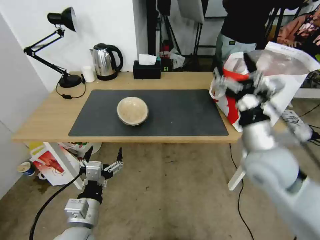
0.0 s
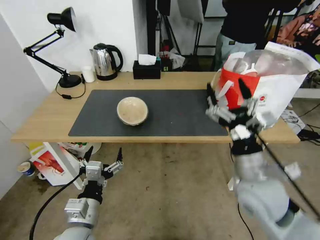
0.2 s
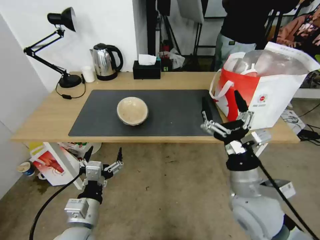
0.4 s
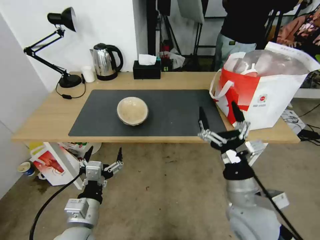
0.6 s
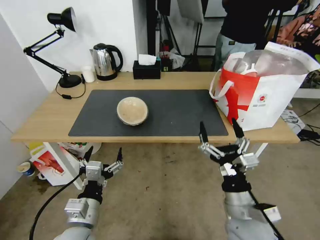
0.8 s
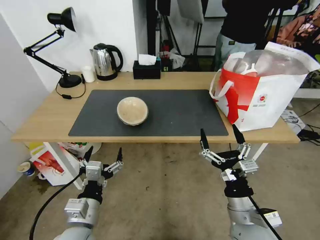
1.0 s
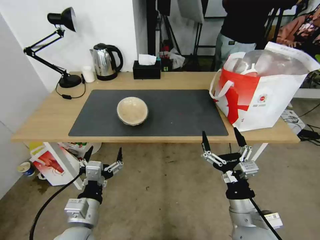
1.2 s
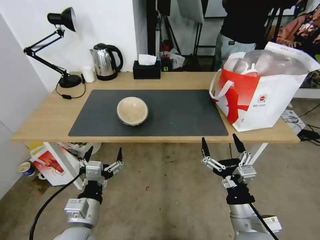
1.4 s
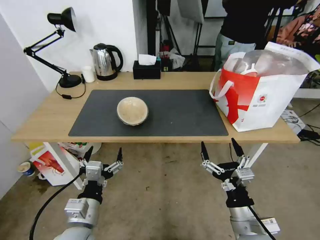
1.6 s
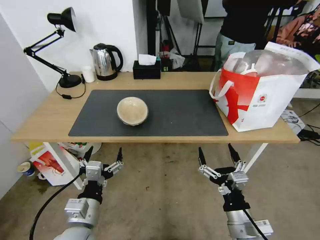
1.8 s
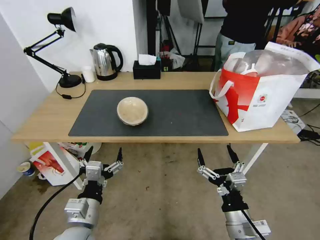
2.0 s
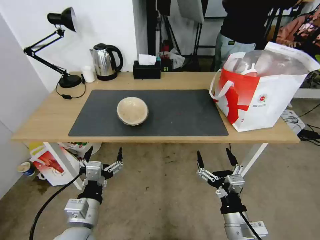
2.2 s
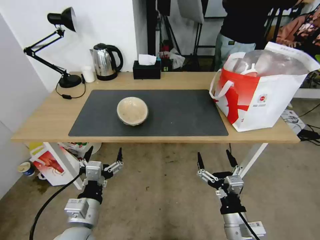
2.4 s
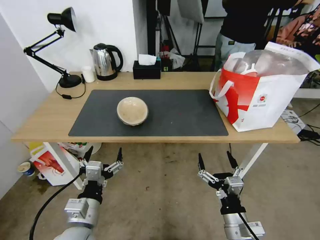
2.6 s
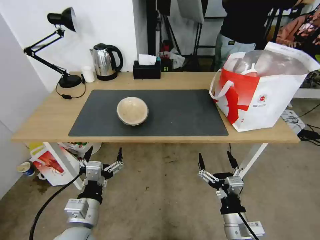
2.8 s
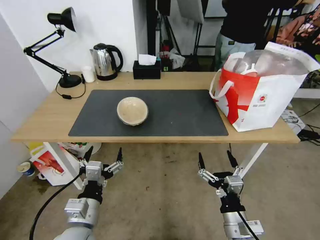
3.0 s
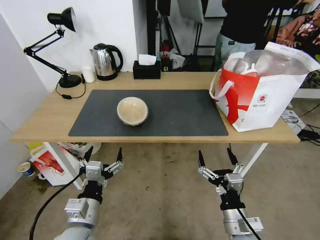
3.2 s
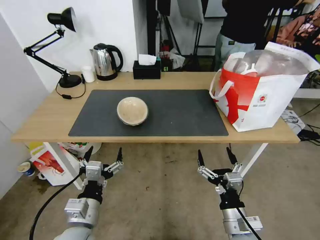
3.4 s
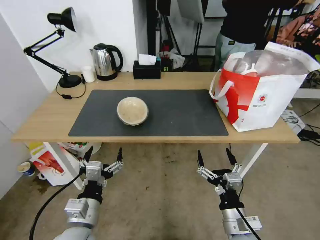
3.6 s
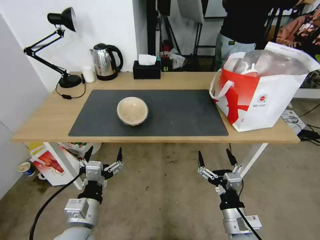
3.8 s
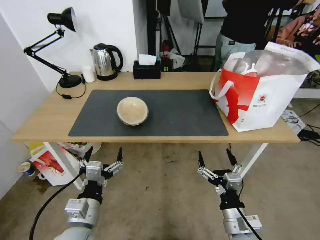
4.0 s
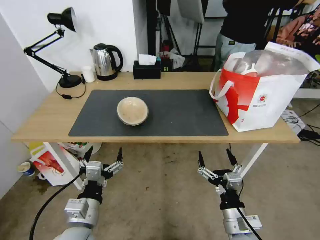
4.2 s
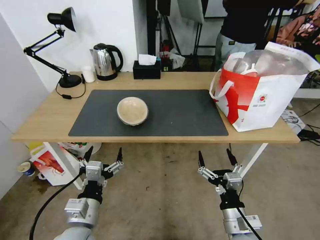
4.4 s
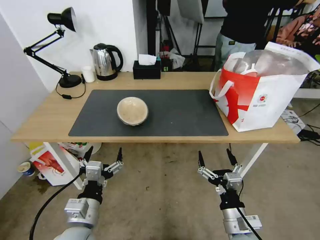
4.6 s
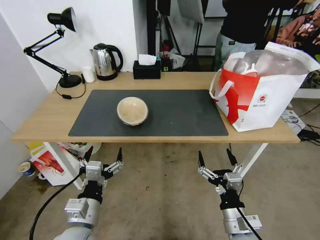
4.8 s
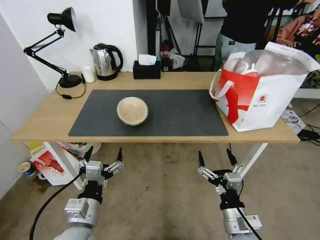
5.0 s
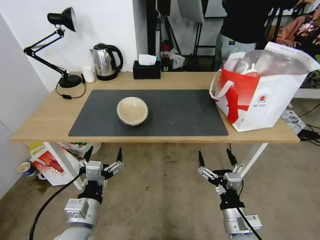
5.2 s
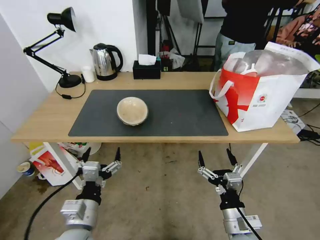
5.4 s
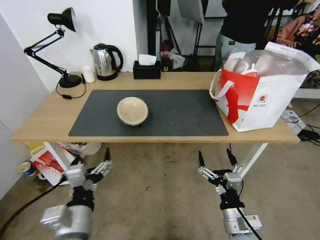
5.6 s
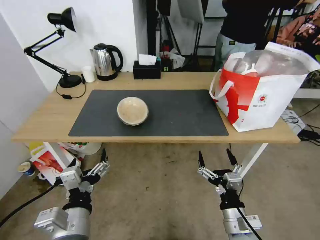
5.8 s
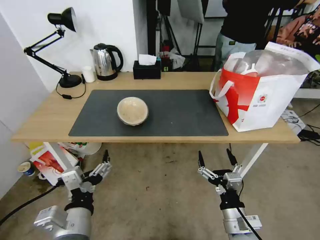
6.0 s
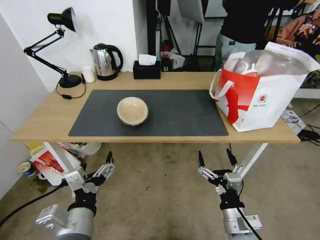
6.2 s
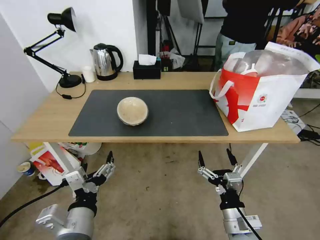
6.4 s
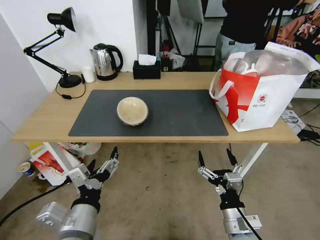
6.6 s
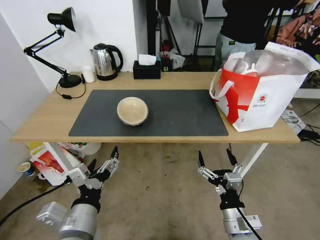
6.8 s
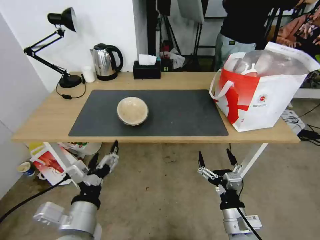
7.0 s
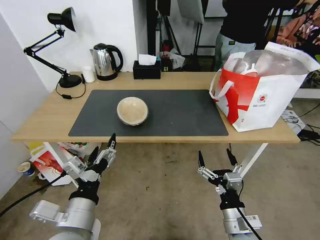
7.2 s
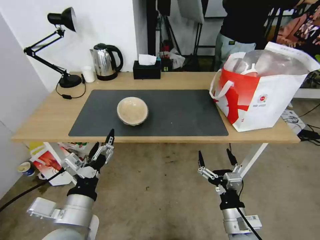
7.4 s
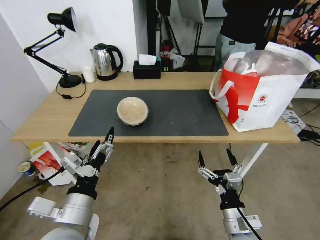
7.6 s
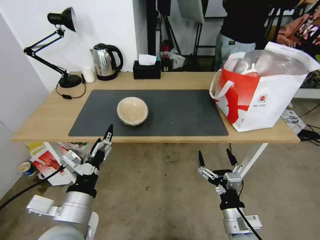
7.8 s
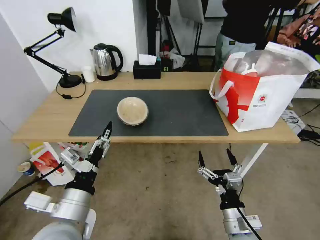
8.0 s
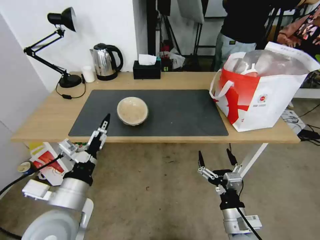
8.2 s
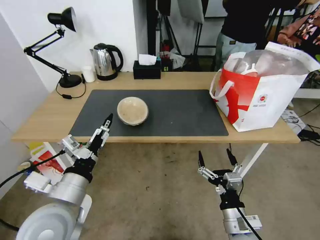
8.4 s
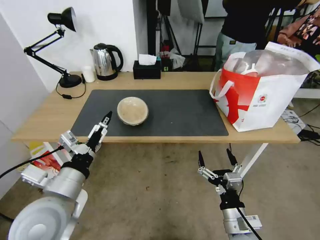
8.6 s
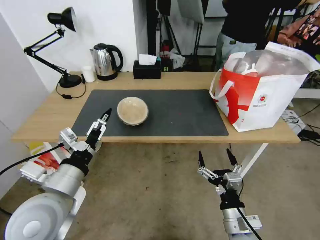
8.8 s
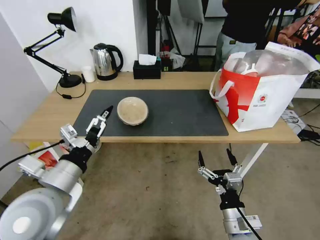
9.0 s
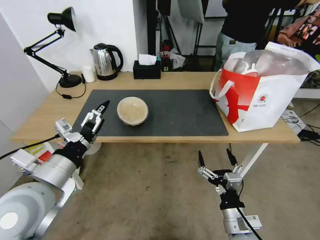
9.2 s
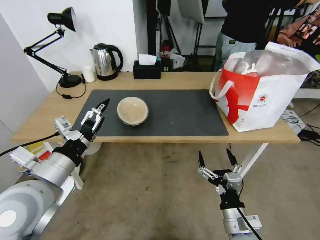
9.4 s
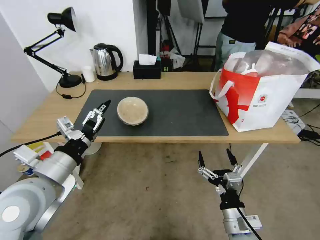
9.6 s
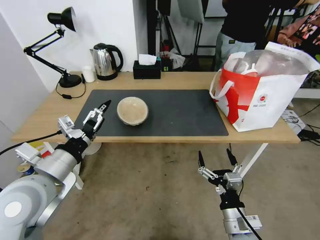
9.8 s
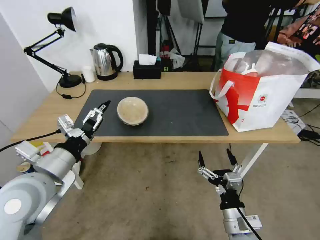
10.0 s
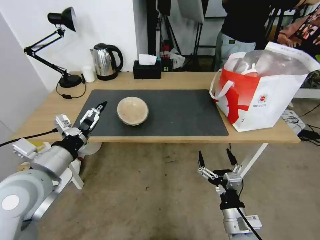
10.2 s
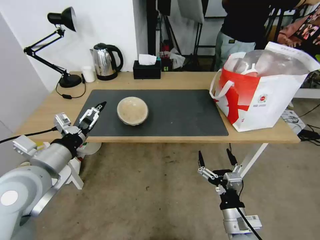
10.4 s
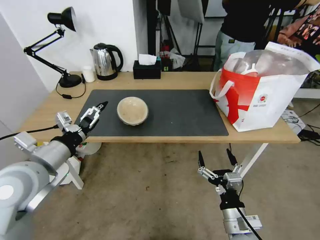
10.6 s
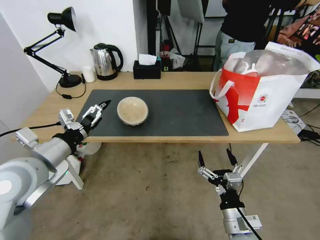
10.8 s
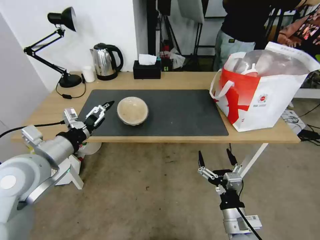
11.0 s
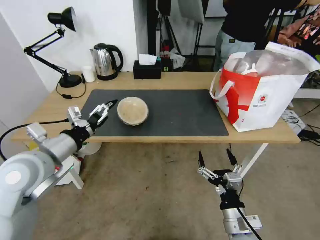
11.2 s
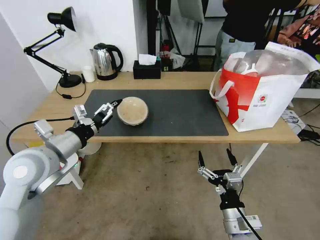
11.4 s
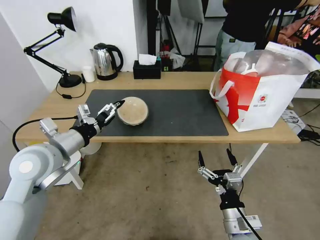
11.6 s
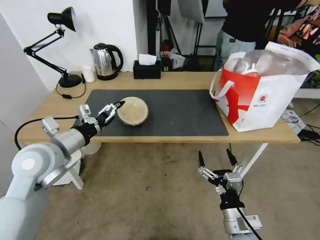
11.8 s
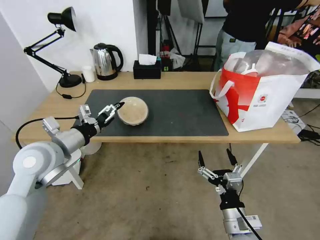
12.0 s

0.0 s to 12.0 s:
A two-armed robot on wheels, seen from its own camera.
Task of the whole recording: Pick up the trash from the table and place it into the takeout bag.
0.0 to 1.6 s: The right gripper heads downward and backward, covering roughly 20 cm.
1.6 to 3.0 s: The grippers stay close to where they were, moving slightly.
3.0 to 4.4 s: Both grippers stay put.
4.4 to 6.0 s: The left gripper goes some 5 cm upward.
7.6 to 9.0 s: The left gripper travels forward and upward by about 5 cm.
9.0 to 10.4 s: The left gripper moves roughly 5 cm.
10.4 to 12.0 s: The left gripper shifts about 5 cm forward.

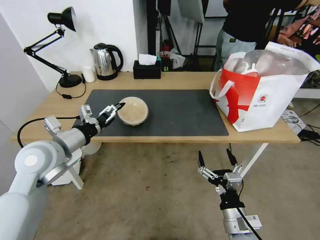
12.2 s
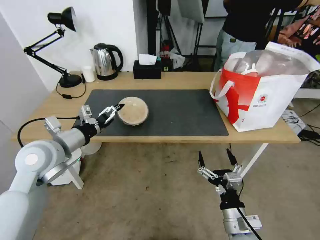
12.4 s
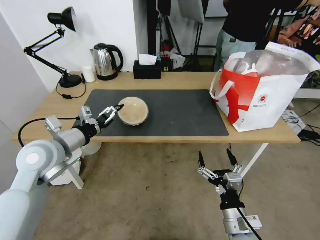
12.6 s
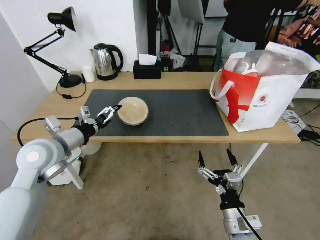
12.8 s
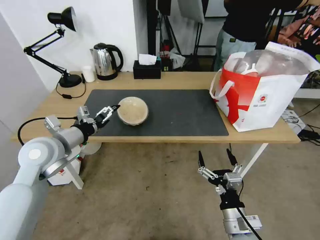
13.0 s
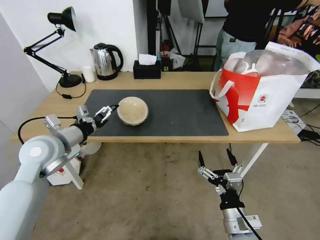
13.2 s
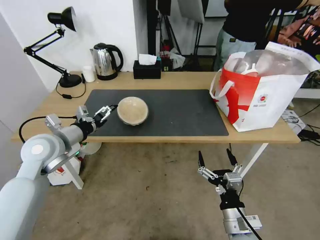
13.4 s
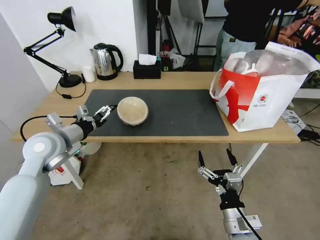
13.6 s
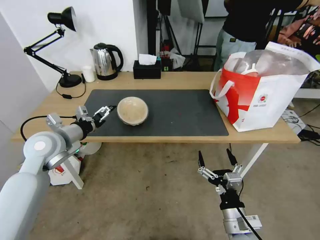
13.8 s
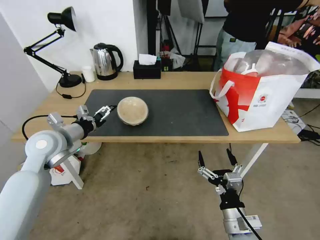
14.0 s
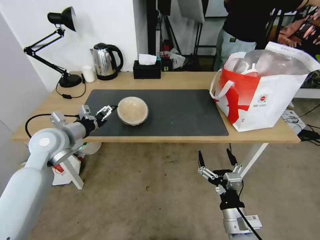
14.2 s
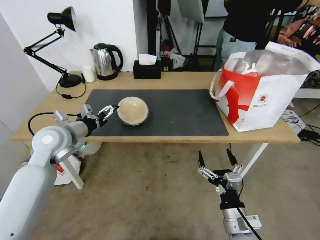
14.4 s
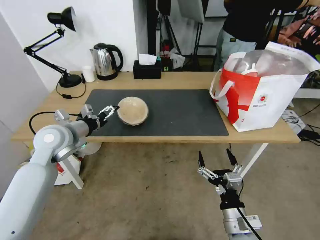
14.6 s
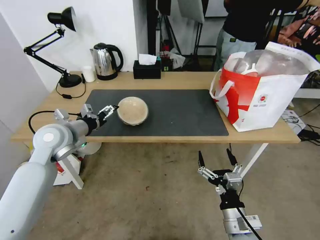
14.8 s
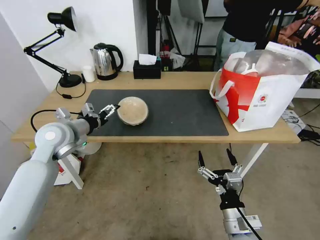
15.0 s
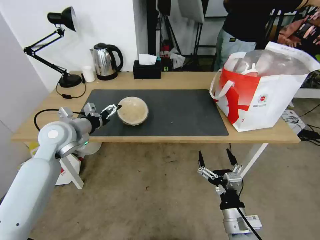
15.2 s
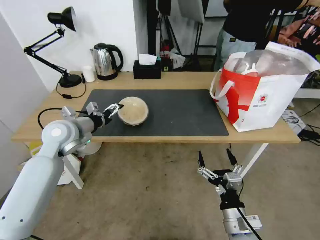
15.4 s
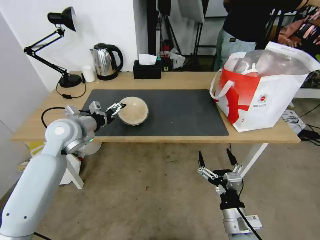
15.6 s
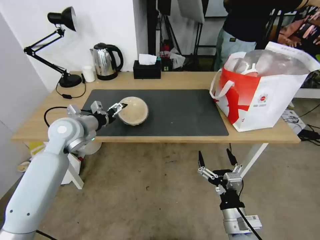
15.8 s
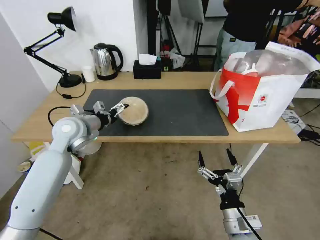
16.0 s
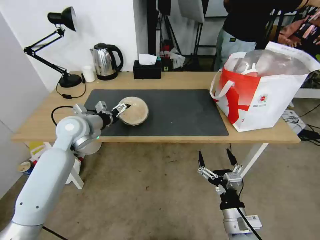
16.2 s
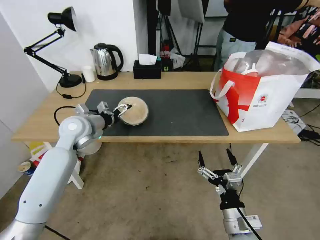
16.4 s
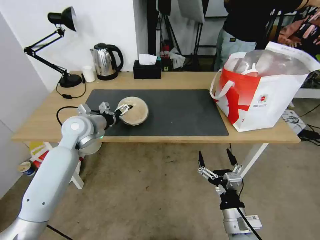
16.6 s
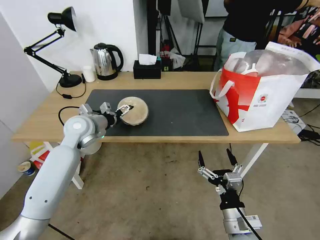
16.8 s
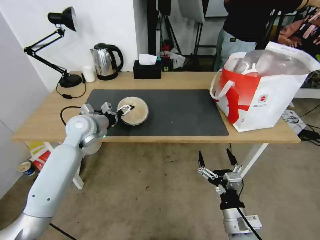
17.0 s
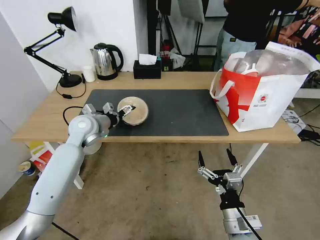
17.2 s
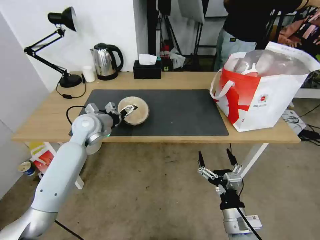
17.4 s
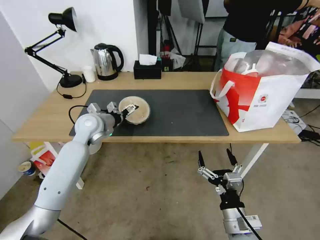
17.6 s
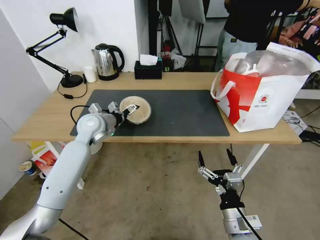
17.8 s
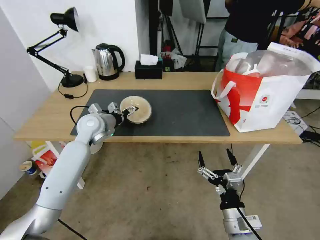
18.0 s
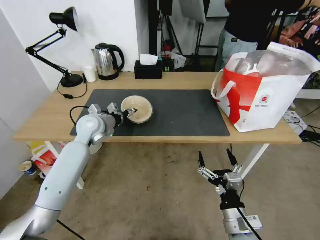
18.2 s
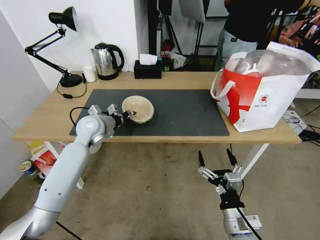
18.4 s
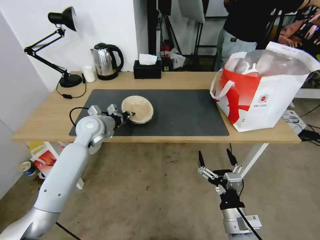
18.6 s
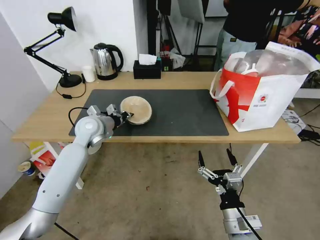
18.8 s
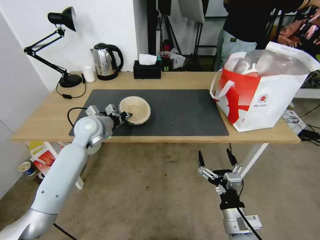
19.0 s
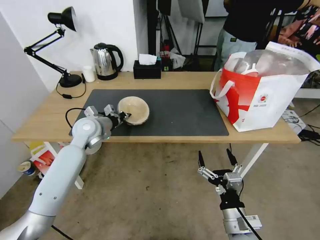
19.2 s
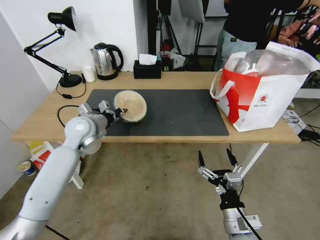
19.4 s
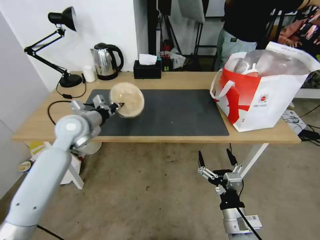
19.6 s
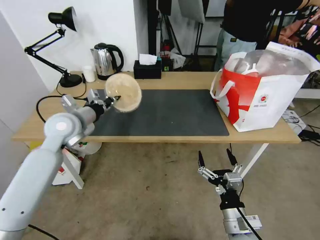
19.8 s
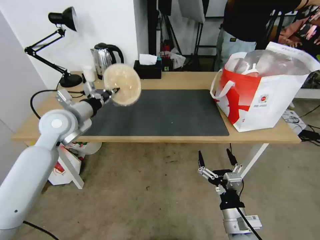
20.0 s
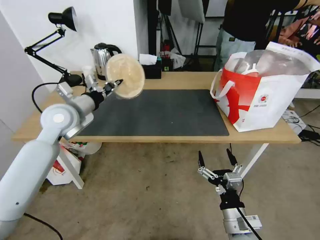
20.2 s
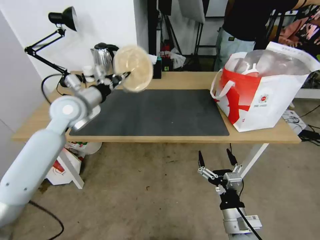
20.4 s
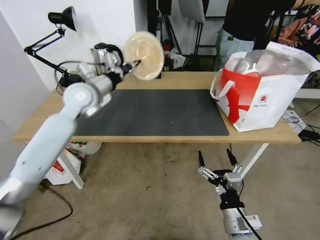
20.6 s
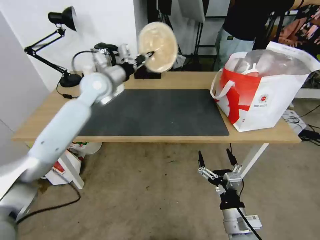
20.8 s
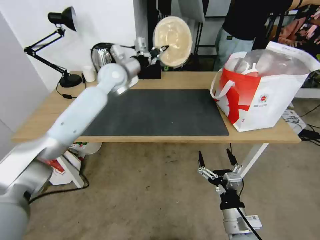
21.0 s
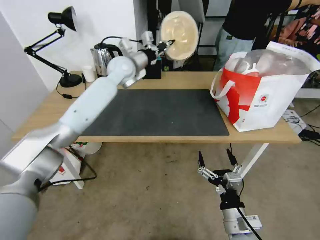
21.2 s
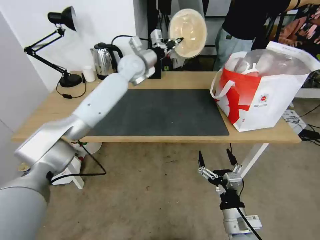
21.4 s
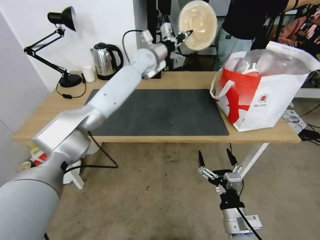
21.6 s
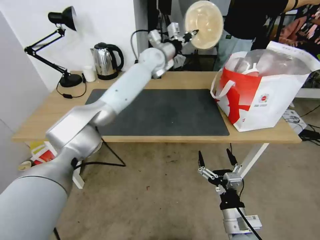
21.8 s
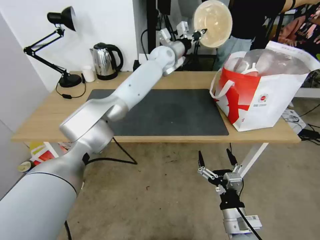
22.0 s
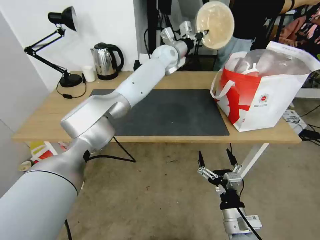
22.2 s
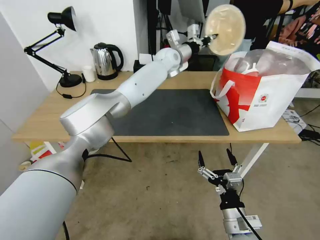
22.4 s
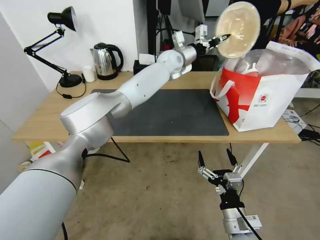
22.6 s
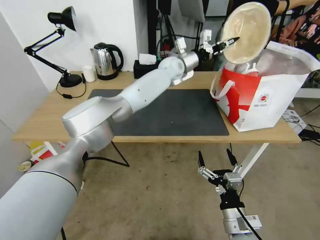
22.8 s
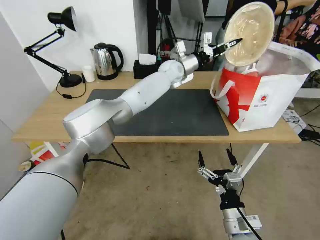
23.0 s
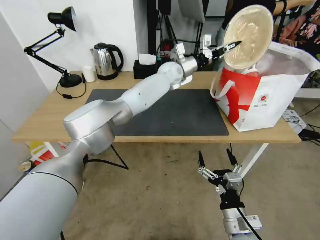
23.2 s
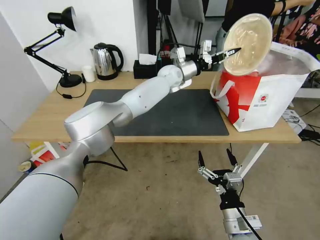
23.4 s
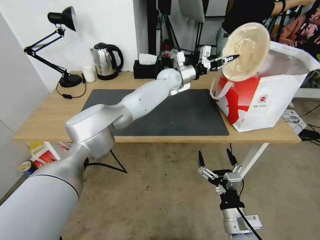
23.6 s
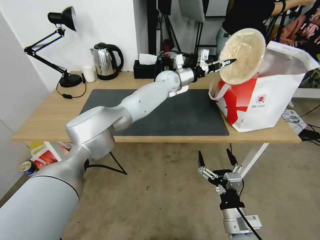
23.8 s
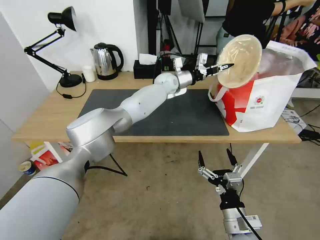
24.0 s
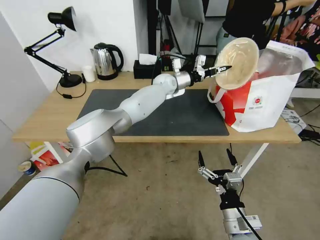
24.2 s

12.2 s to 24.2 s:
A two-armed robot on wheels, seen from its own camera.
Task of the whole recording: Pick up the trash from the table and place it into the takeout bag.
12.2 to 13.8 s: The left gripper is displaced forward by roughly 5 cm.
13.8 to 15.2 s: The grippers make only small movements.
15.2 to 16.6 s: The left gripper ends up about 5 cm from where it was.
16.6 to 18.2 s: The left gripper closes.
18.2 to 19.8 s: The left gripper travels upward and backward by roughly 10 cm, and closes.
19.8 to 21.2 s: The left gripper travels forward, to the right and upward by approximately 15 cm.
21.2 to 22.6 s: The left gripper shifts approximately 30 cm to the right and forward.
22.6 to 24.2 s: The left gripper moves downward, some 10 cm.
